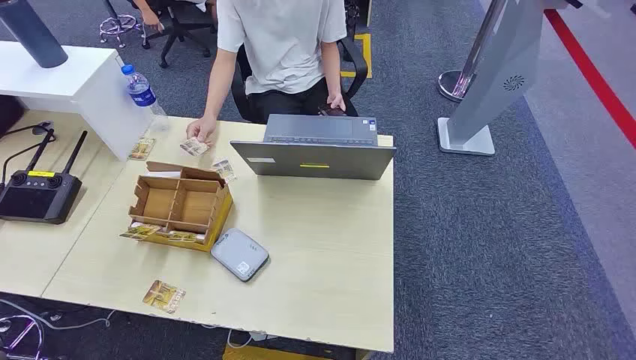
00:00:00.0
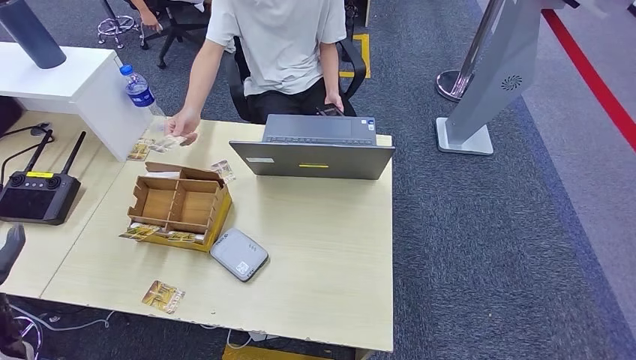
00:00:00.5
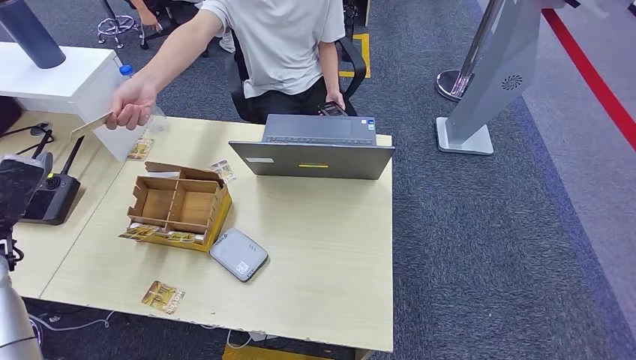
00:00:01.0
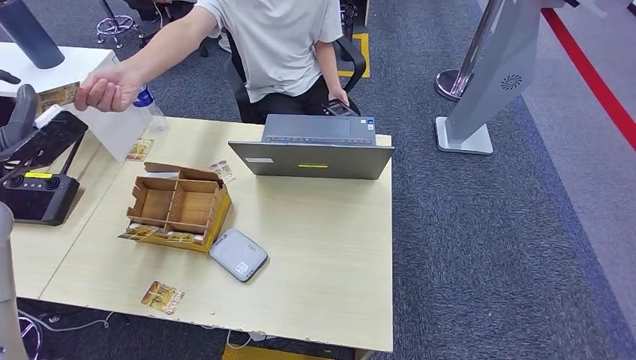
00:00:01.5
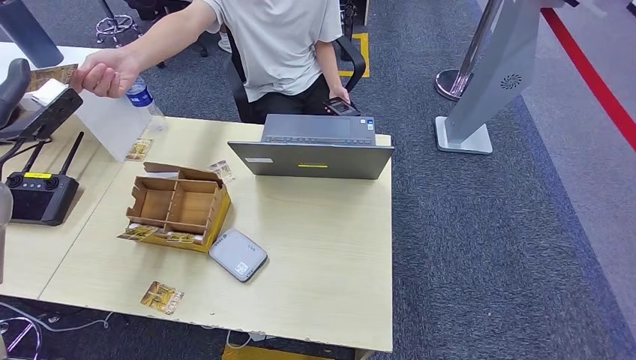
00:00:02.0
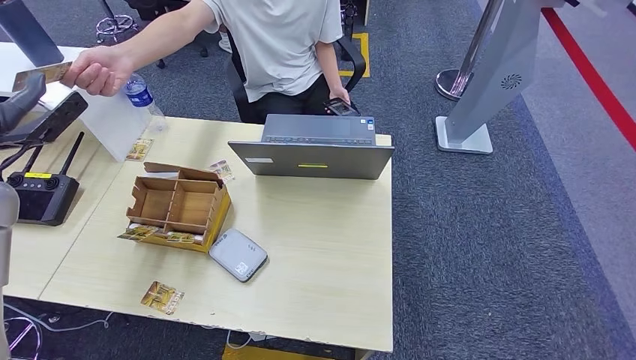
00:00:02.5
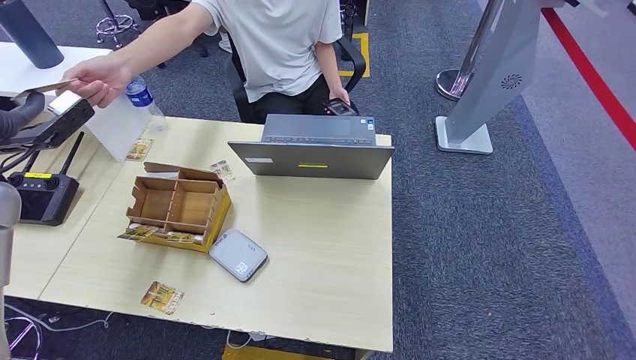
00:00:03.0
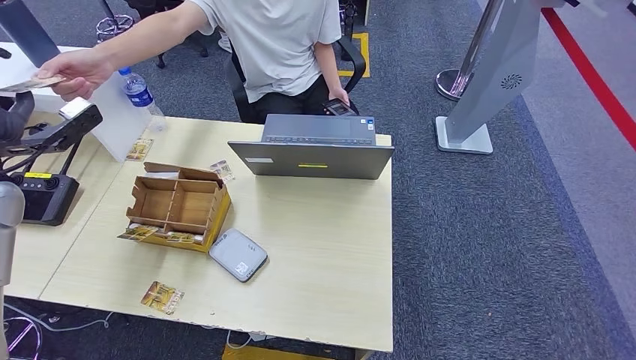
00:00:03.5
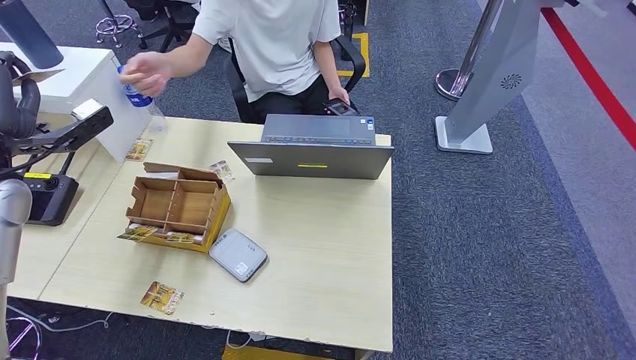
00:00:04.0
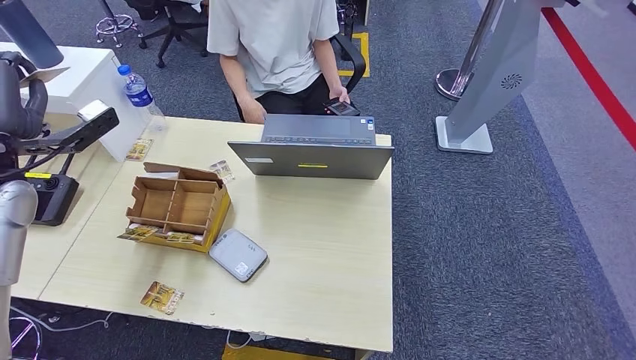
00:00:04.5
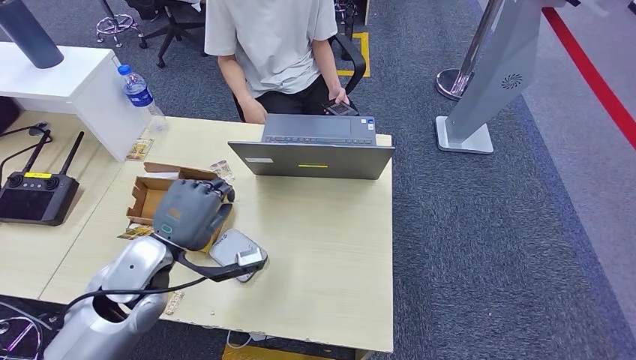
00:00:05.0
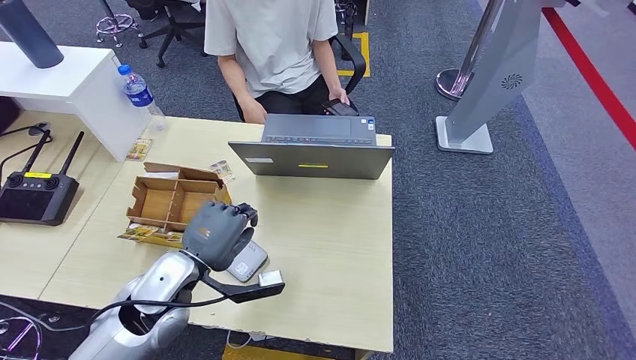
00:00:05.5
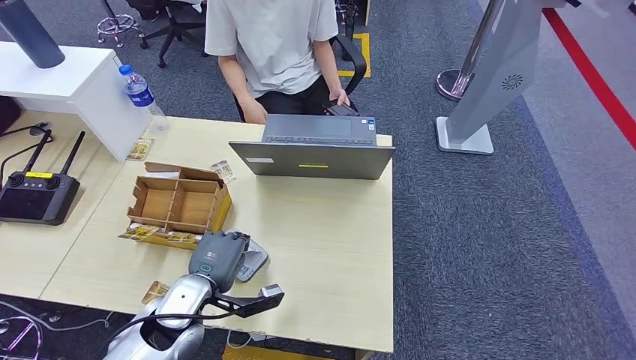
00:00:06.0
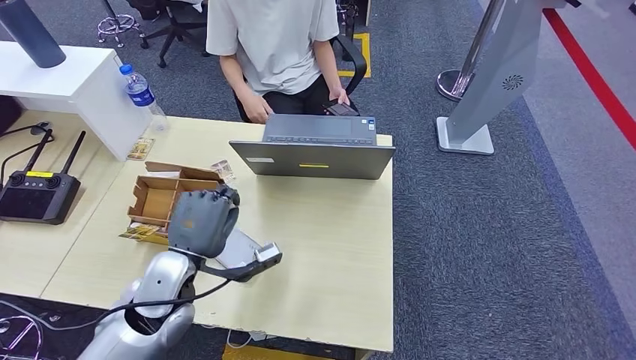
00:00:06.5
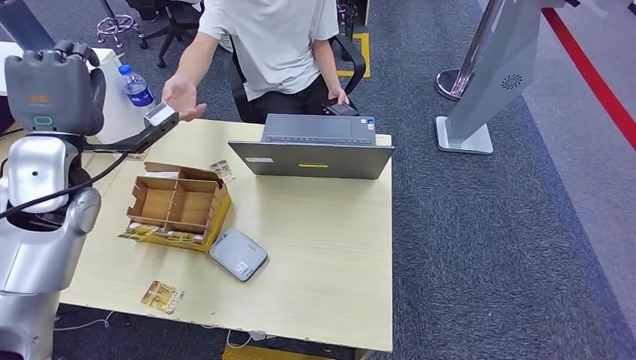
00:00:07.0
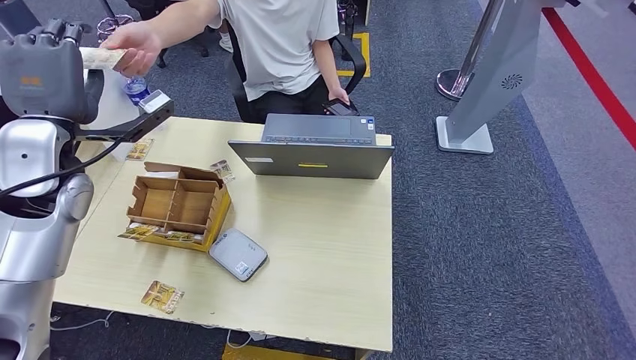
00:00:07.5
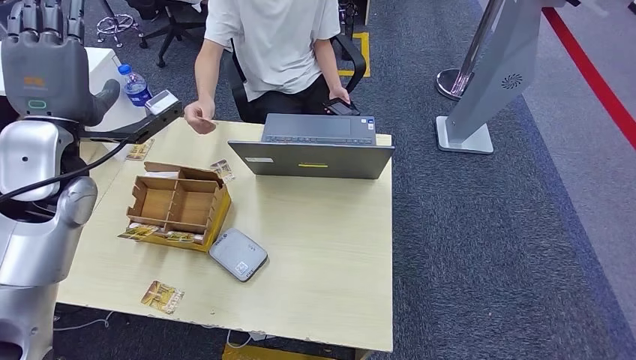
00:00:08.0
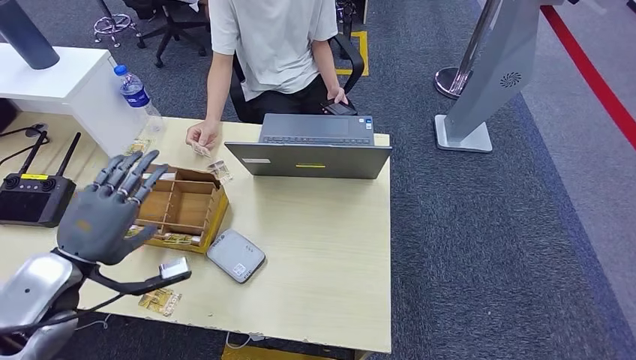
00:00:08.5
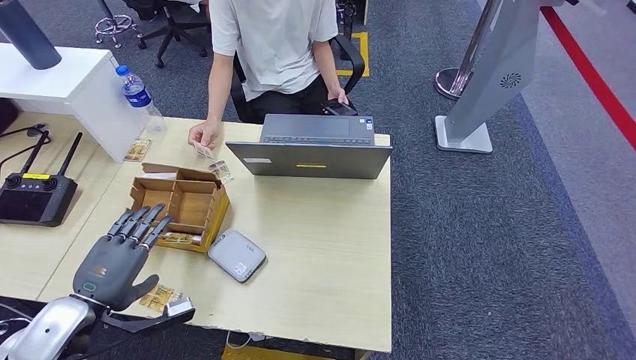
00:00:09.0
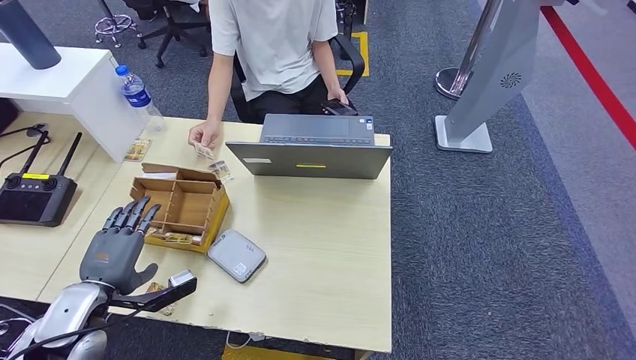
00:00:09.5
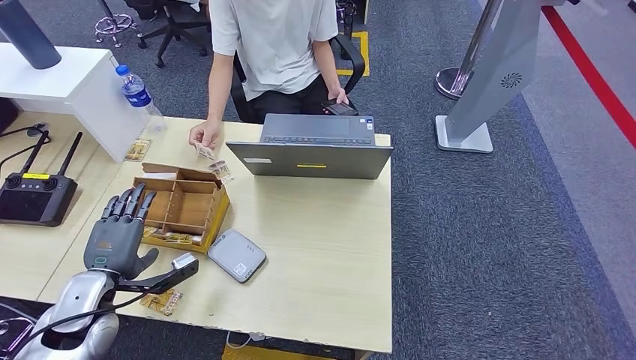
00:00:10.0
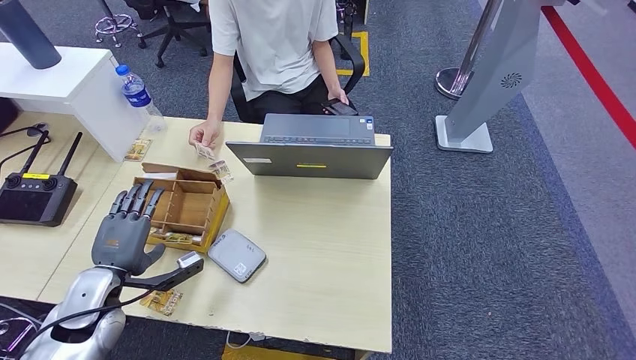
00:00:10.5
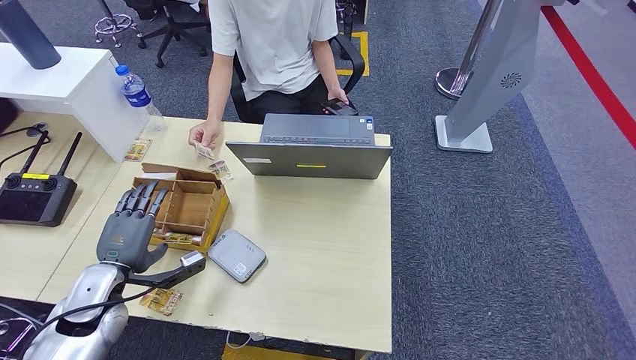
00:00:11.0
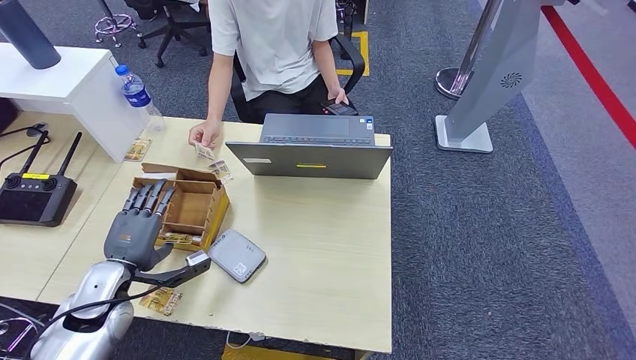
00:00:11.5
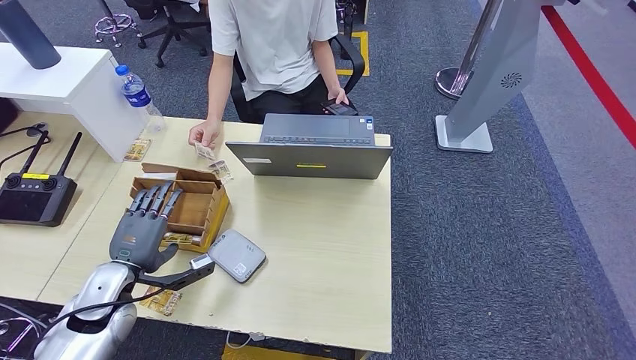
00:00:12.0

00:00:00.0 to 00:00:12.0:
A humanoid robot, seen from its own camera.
Step, 00:00:00.0 to 00:00:03.5: Take the ID card from the person's hand.
Step, 00:00:05.0 to 00:00:06.5: Place the ID card on the card reader.
Step, 00:00:07.0 to 00:00:08.0: Hand the ID card to the person.
00:00:02.0 to 00:00:04.0: The hands make only small movements.
00:00:04.0 to 00:00:06.0: The left hand goes approximately 35 cm downward, to the right and backward.
00:00:06.0 to 00:00:08.0: The left hand moves upward, forward and to the left, roughly 30 cm.
00:00:10.0 to 00:00:12.0: The hands make only small movements.

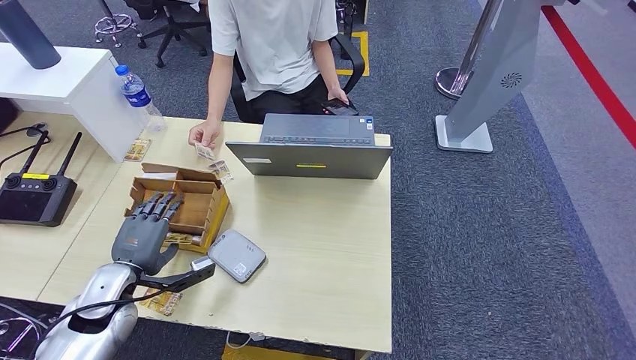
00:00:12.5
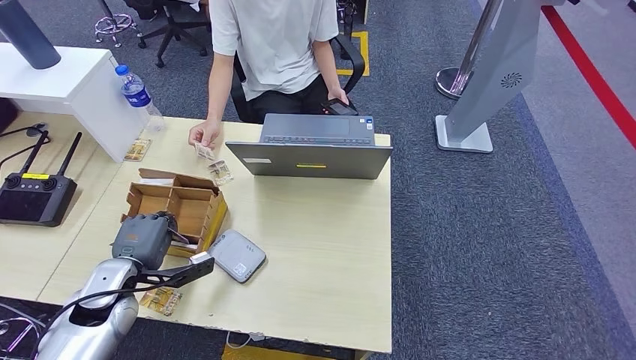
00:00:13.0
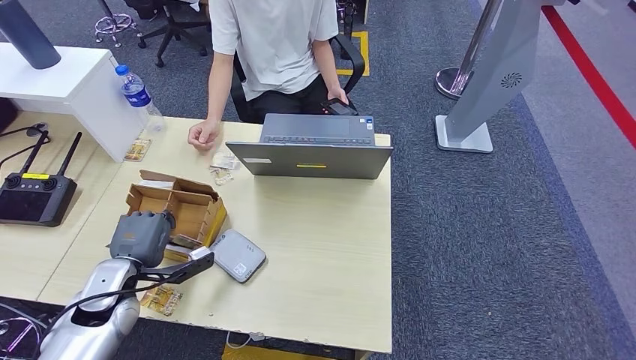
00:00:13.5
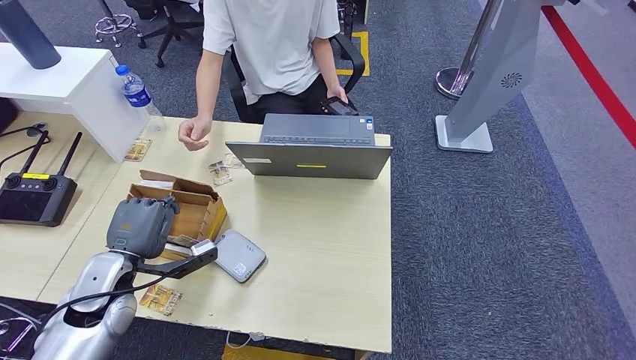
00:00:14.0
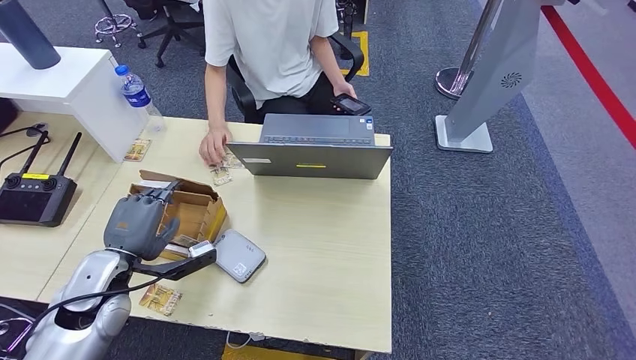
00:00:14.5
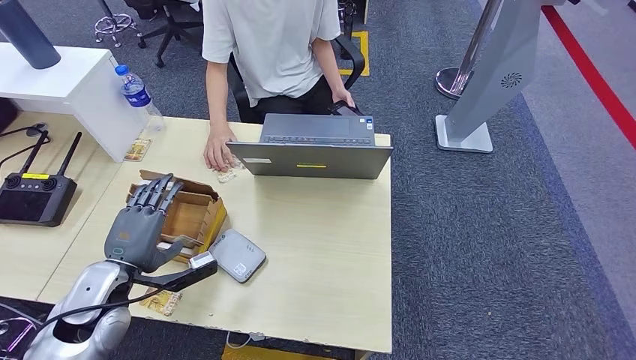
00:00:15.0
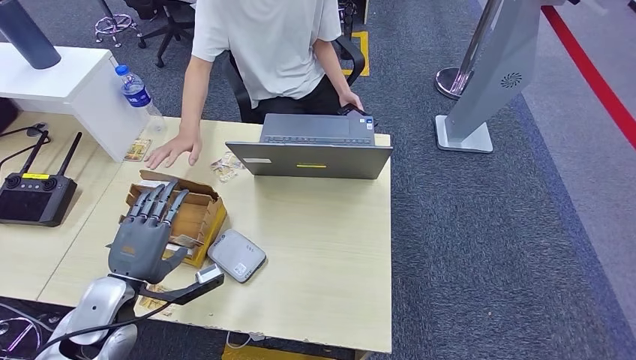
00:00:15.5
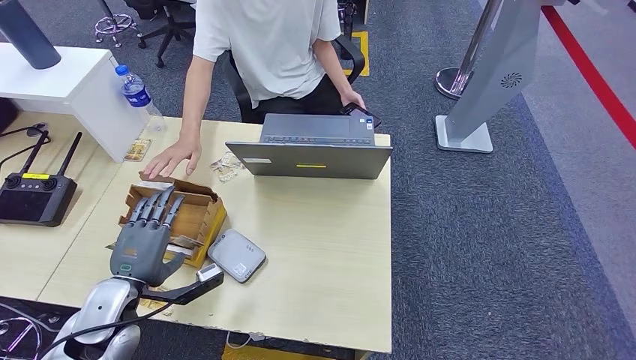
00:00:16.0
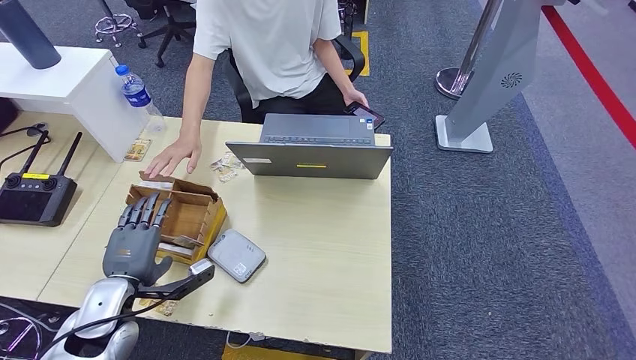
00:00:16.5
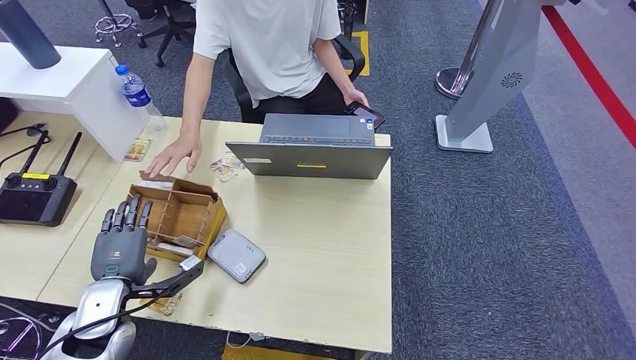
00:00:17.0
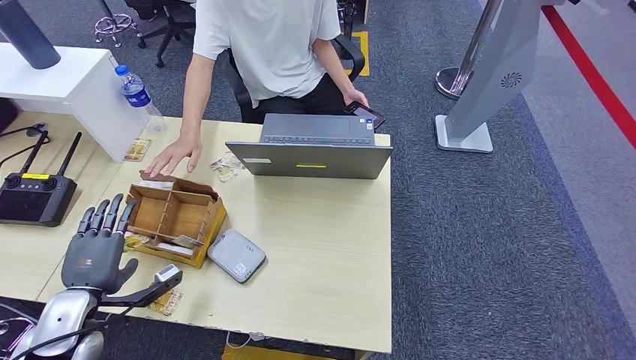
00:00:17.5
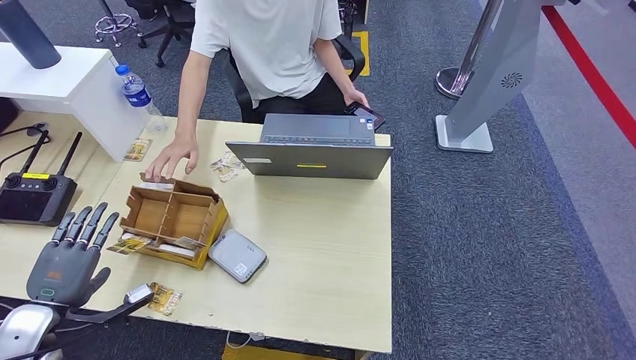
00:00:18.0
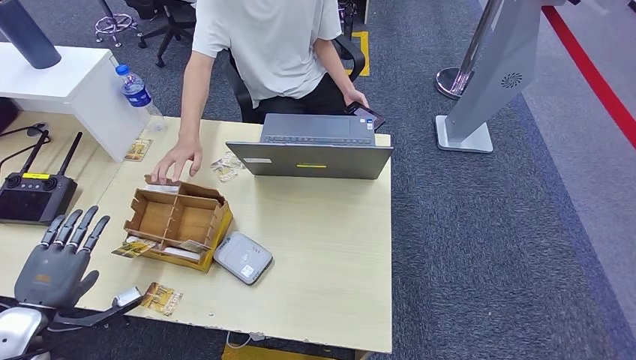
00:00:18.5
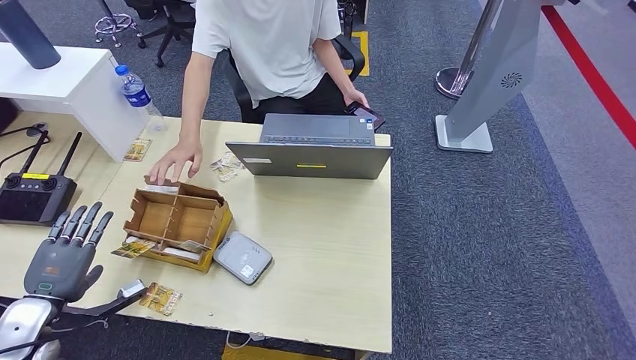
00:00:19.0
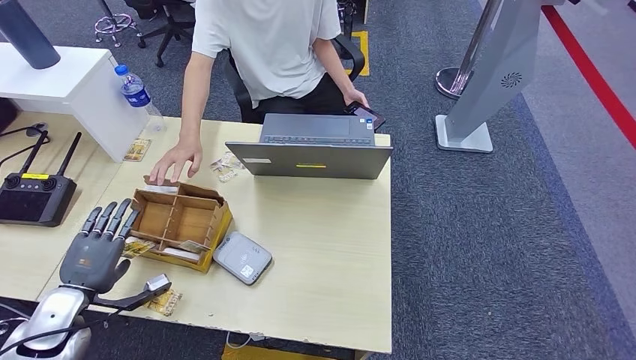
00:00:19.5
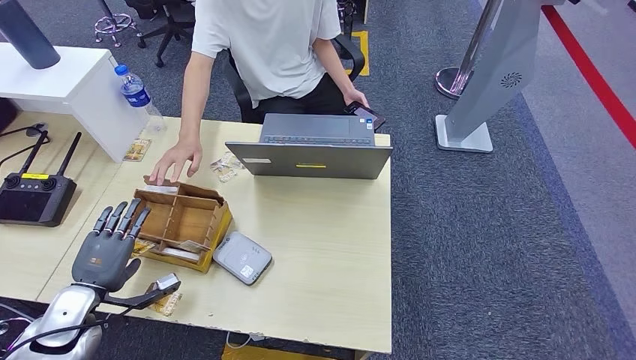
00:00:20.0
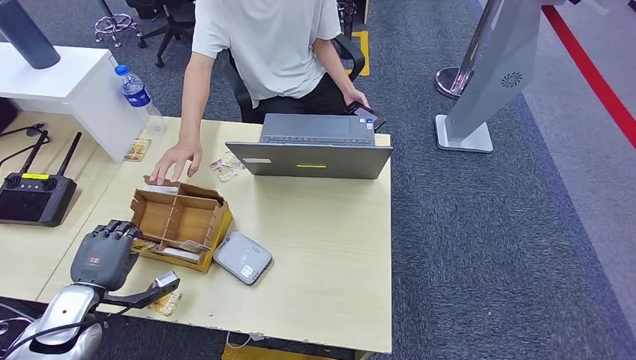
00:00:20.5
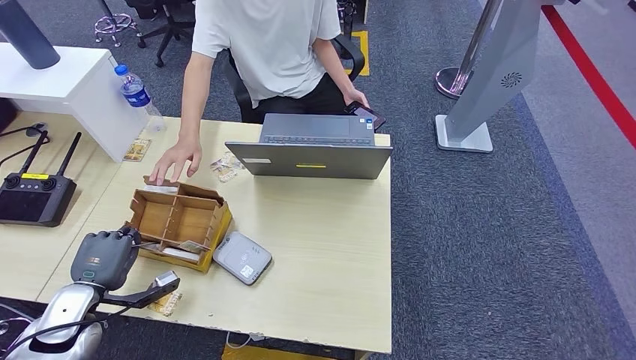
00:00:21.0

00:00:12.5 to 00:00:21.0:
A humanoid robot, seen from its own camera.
00:00:12.5 to 00:00:14.5: The left hand travels upward by approximately 5 cm.
00:00:14.5 to 00:00:16.5: The left hand moves some 5 cm.
00:00:16.5 to 00:00:19.0: The left hand heads to the left, covering about 15 cm.
00:00:19.0 to 00:00:21.0: The left hand ends up about 5 cm from where it was.
